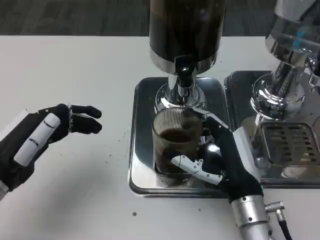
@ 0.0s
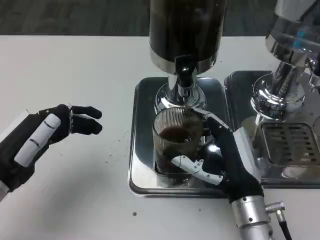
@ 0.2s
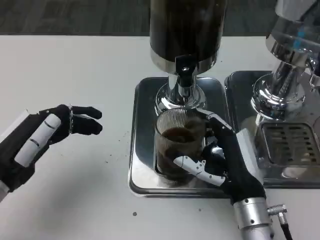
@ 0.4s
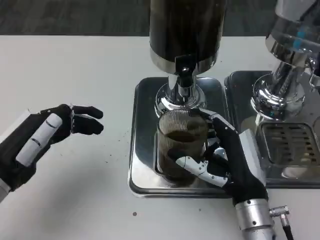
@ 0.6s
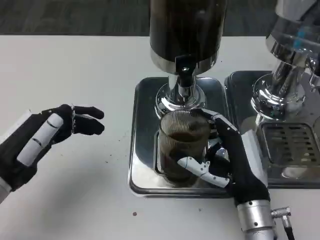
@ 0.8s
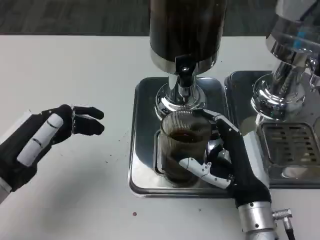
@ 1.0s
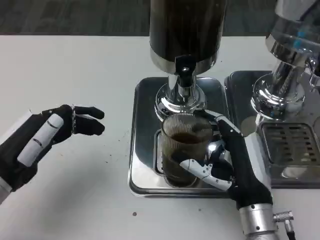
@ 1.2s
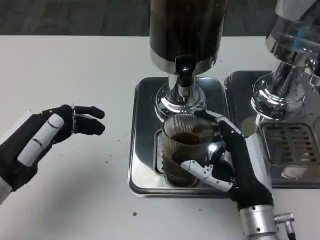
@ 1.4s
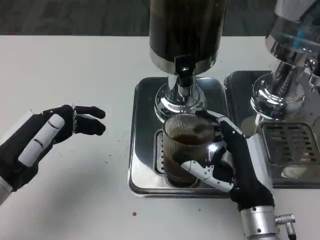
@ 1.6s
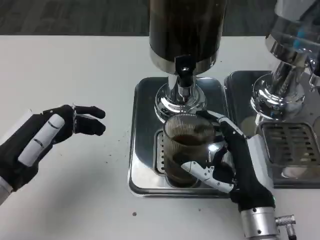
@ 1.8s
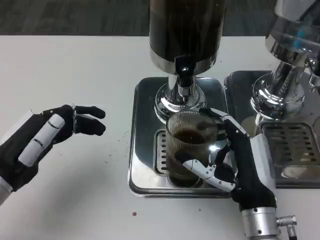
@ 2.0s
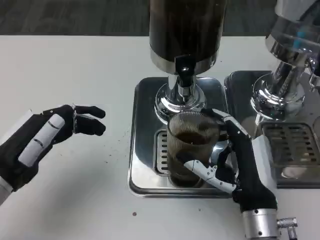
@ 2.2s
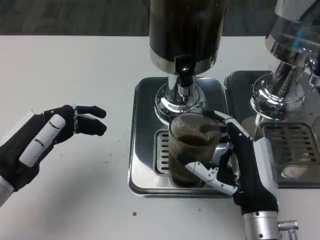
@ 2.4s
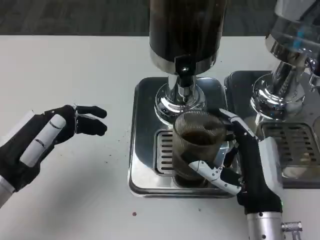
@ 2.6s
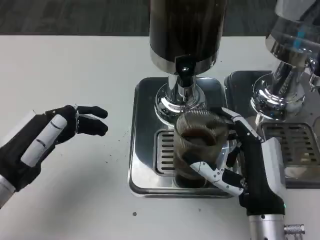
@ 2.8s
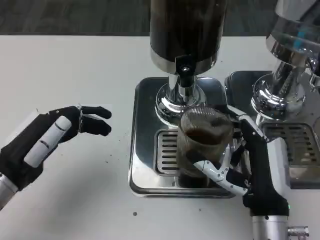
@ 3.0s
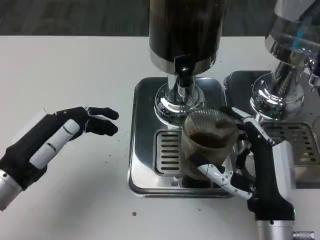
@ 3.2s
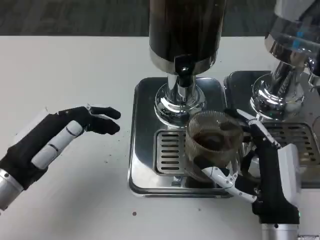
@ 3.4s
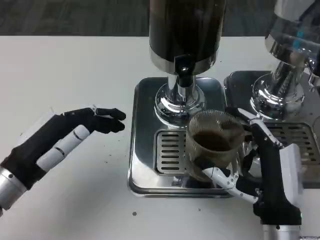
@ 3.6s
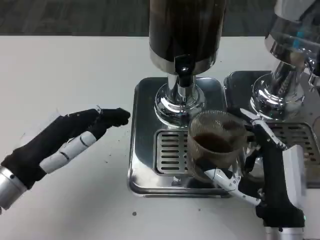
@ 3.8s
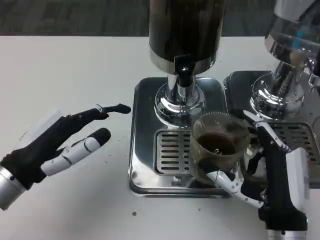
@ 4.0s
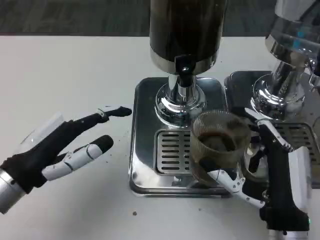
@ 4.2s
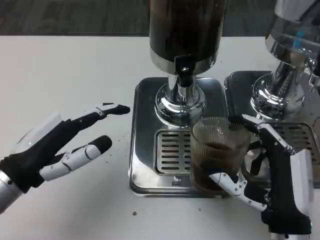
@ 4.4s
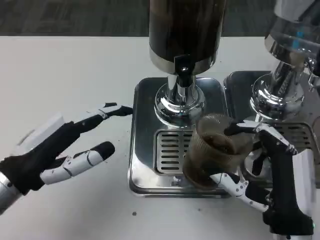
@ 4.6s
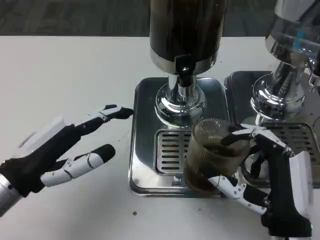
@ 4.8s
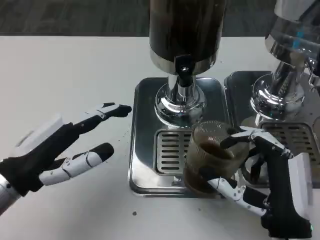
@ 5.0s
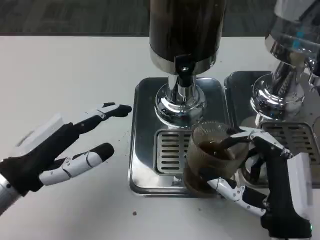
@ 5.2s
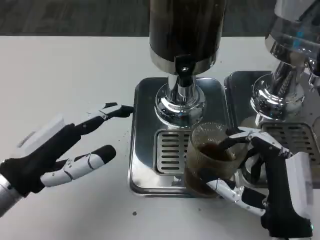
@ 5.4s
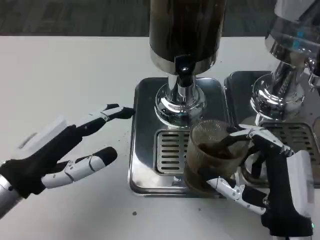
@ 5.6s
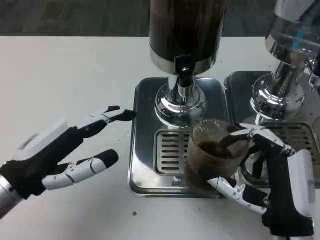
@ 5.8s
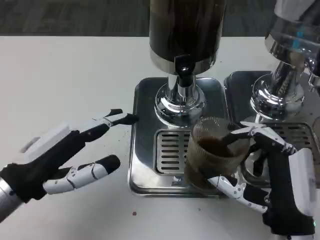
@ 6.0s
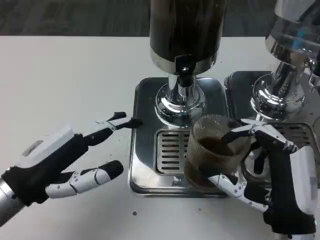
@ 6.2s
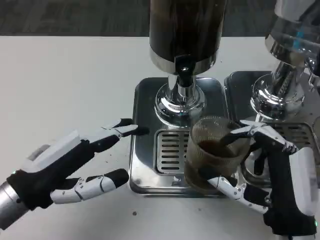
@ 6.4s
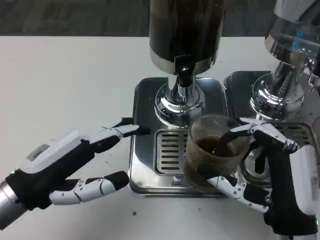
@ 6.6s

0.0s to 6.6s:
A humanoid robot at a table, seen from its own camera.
Task of the whole recording: Grasp the cup under the faucet to collect the drink, then remove the cup.
0.0s to 3.2s: The hands move only a little.
5.0s to 6.6s: There are only small adjustments of the hands.
